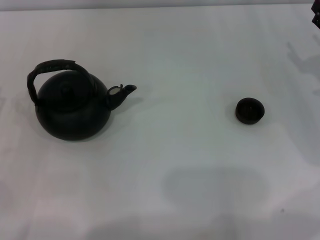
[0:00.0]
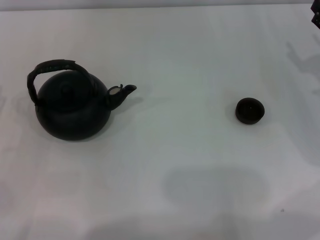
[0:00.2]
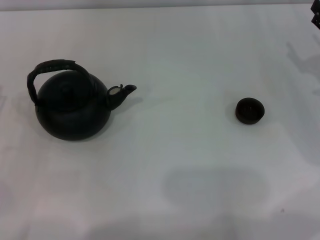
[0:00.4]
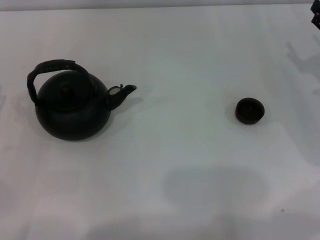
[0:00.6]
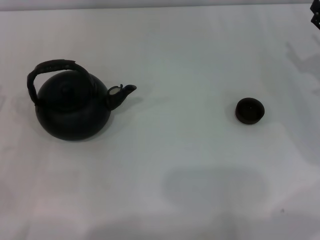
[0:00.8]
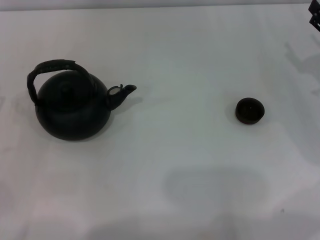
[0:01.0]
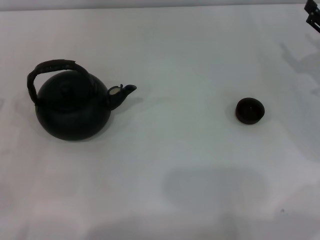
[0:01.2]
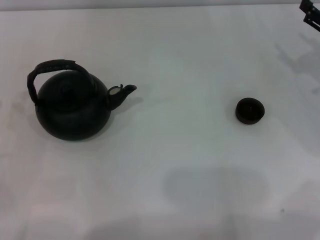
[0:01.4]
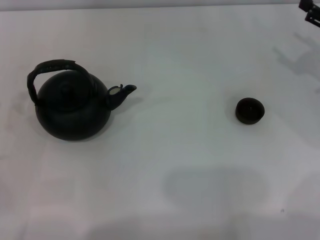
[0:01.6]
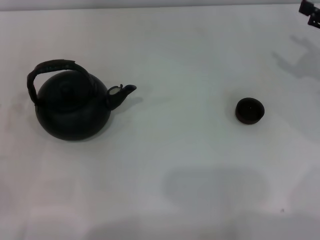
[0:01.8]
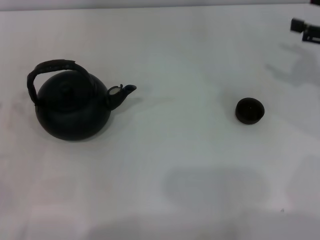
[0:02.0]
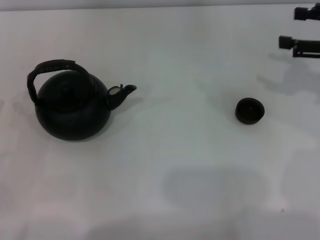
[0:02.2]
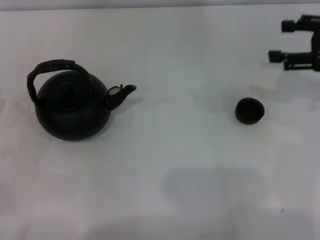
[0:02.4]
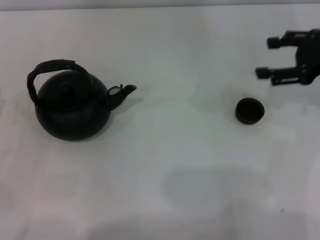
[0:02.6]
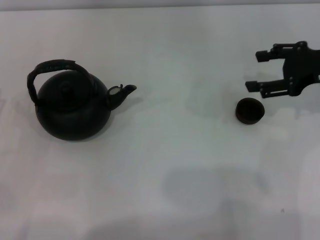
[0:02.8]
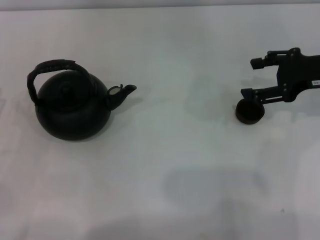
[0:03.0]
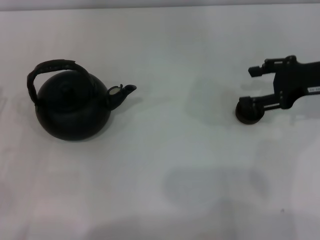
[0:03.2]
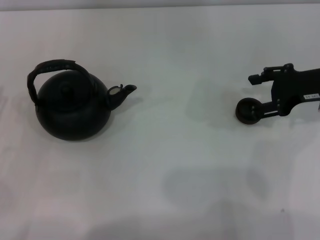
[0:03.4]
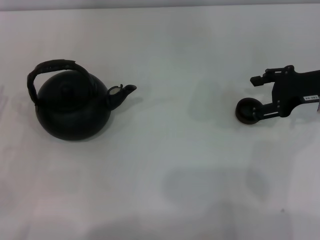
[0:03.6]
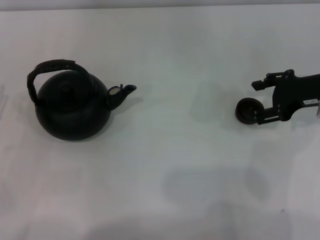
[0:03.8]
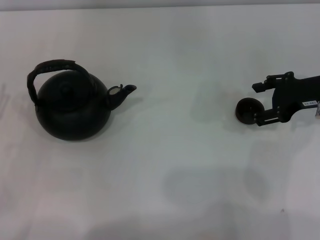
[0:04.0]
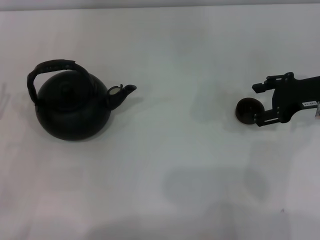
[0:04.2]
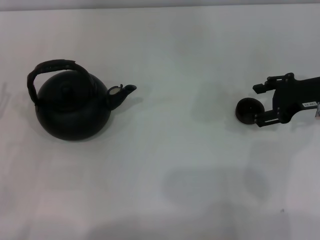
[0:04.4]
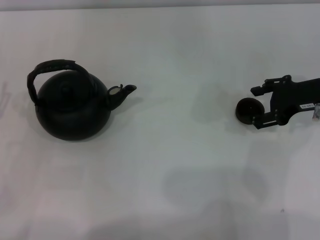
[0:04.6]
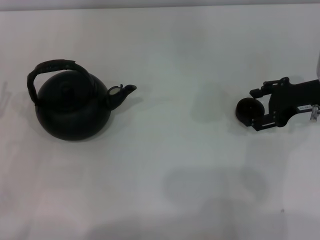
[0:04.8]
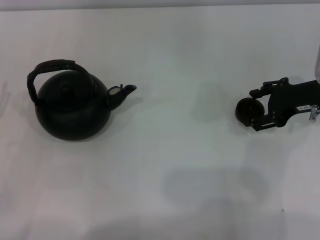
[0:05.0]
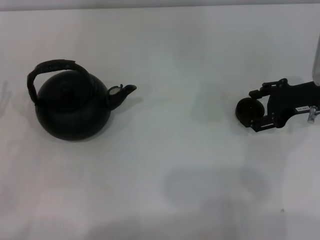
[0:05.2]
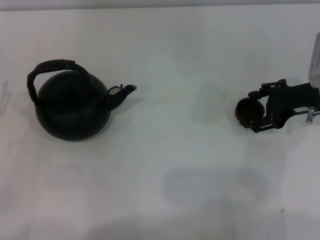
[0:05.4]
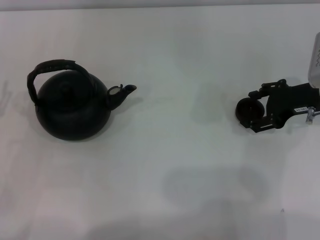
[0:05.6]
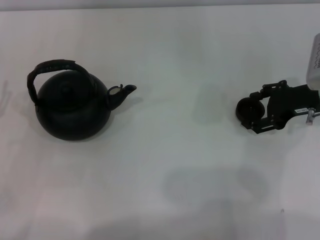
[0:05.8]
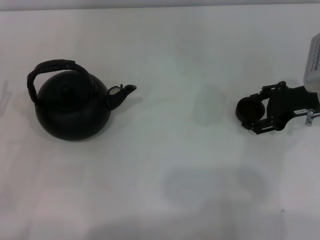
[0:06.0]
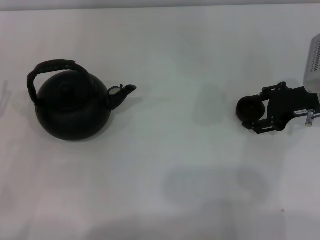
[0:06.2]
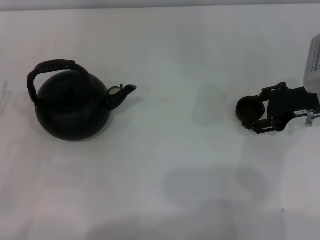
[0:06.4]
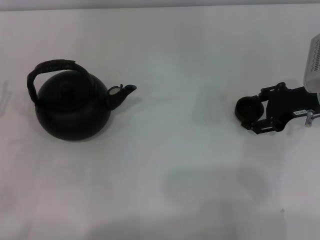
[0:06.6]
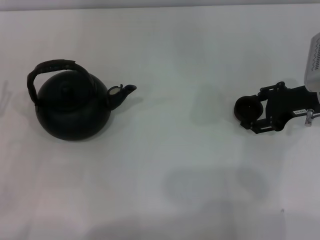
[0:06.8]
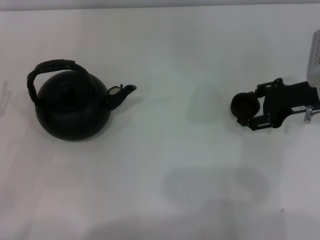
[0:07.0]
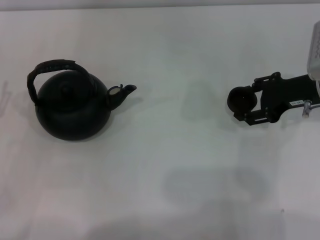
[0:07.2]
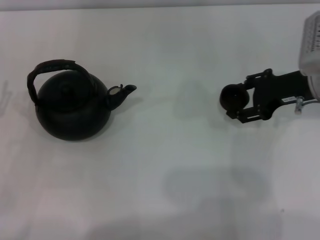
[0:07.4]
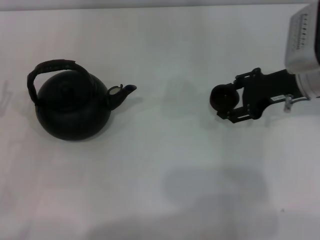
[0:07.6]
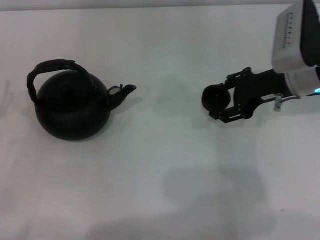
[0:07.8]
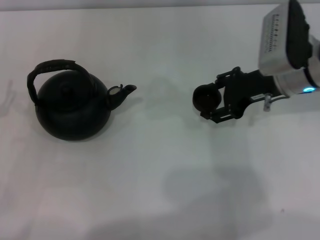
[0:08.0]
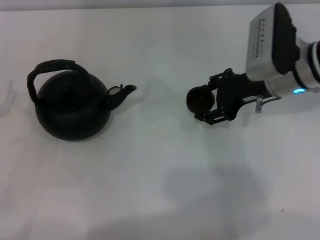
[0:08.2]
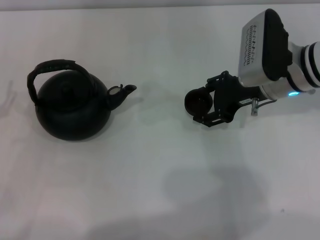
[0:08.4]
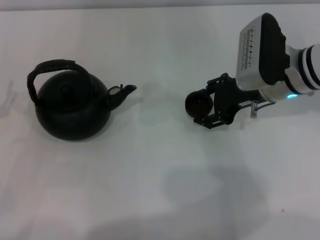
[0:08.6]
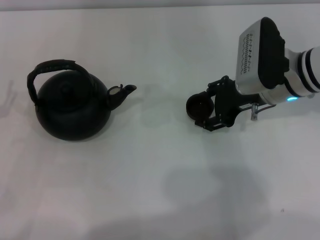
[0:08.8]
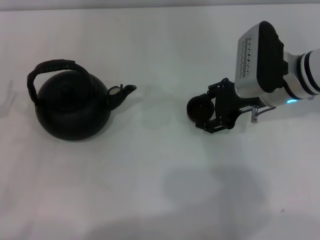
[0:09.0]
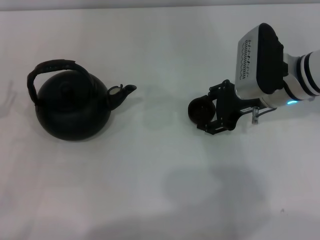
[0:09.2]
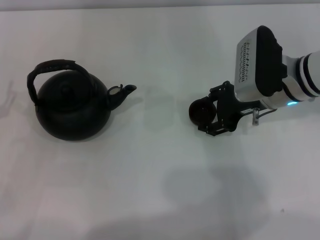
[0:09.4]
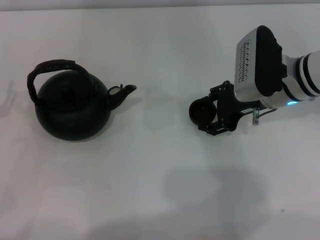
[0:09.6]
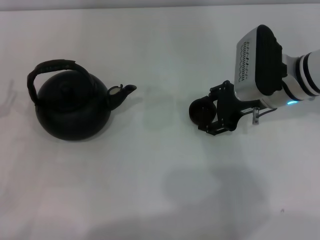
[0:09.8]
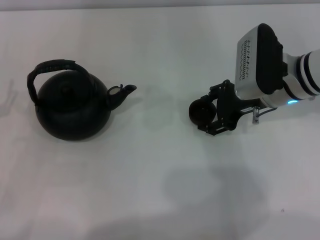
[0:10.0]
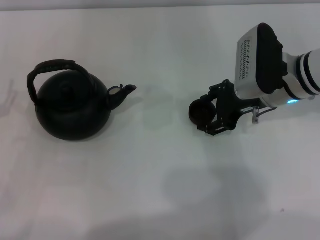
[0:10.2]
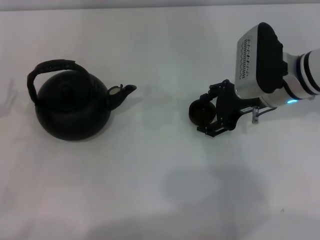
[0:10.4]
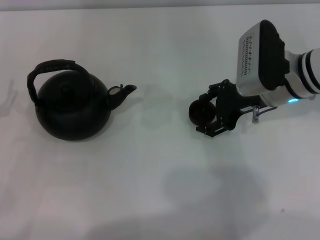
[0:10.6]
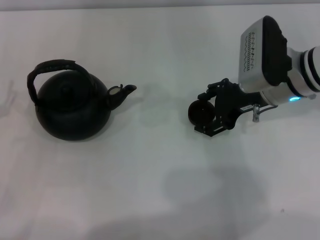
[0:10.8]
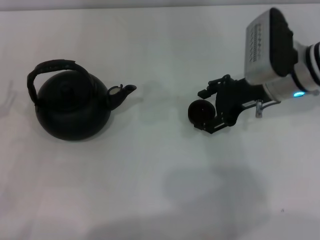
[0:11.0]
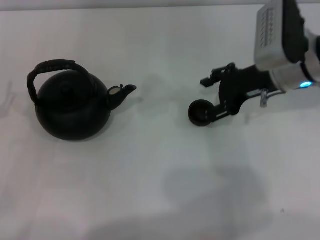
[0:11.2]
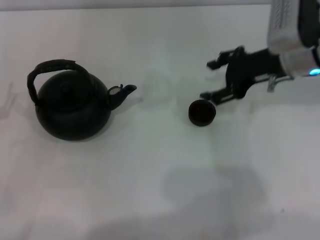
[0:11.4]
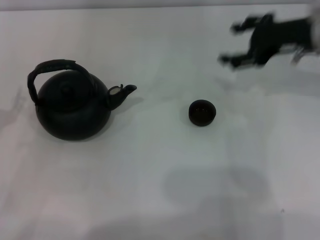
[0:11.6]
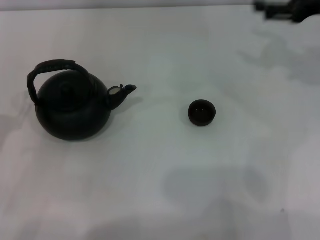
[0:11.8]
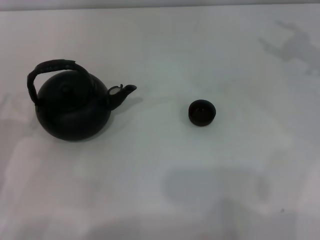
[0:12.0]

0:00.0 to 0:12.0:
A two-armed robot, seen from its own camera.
Task of the whole recording: Grasp the handle of the teapot with one hand and pour tea into the teacup.
Step, 0:00.0 to 0:07.6: Pick up the teacup with the right gripper.
Step, 0:07.8 to 0:11.0: Place the teacup in the center of view with the right gripper.
0:01.6 to 0:03.0: The right gripper goes approximately 5 cm to the left.
0:03.0 to 0:06.0: The grippers stay close to where they were, moving slightly.
0:06.0 to 0:07.6: The right gripper ends up roughly 5 cm from where it was, and closes.
0:07.6 to 0:09.0: The right gripper shifts roughly 5 cm to the left.
0:09.0 to 0:10.4: The right gripper opens its fingers.
0:10.4 to 0:12.0: The right gripper is displaced to the right and upward by roughly 20 cm, and opens its fingers.

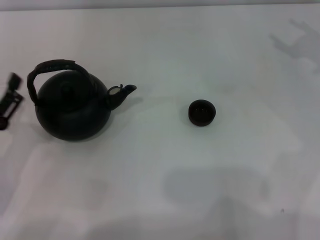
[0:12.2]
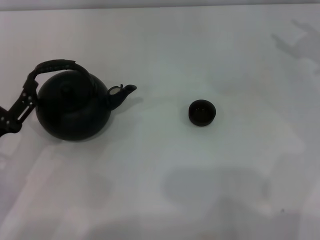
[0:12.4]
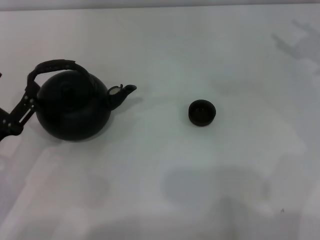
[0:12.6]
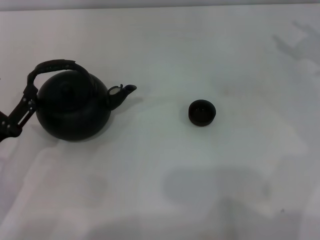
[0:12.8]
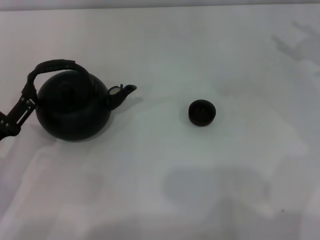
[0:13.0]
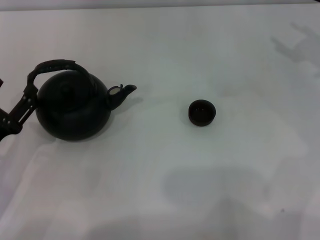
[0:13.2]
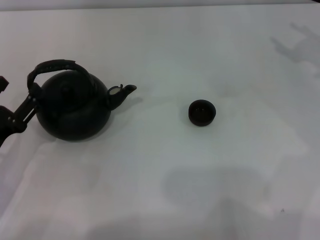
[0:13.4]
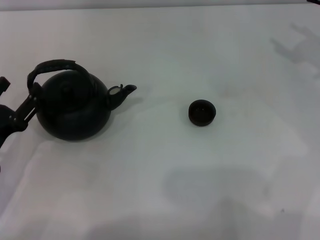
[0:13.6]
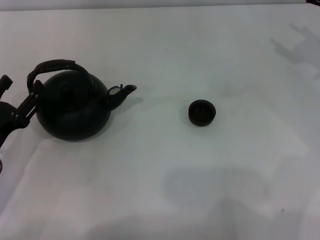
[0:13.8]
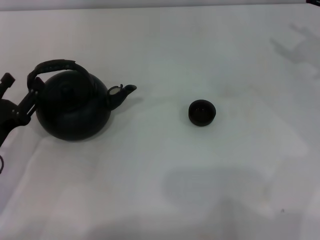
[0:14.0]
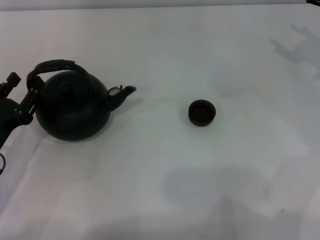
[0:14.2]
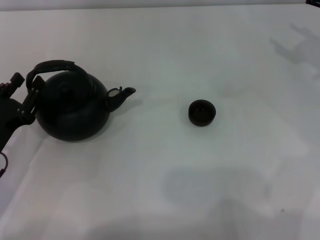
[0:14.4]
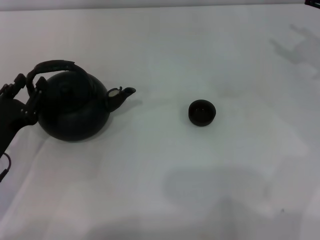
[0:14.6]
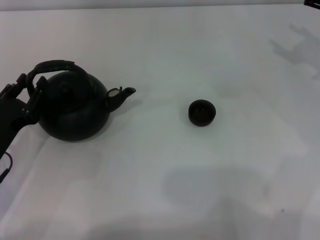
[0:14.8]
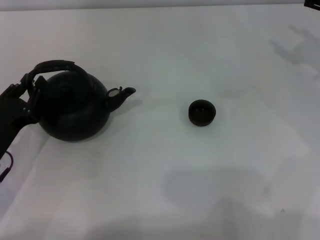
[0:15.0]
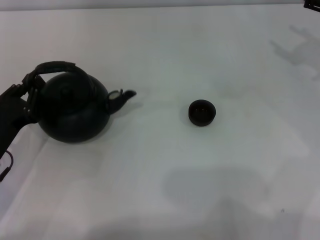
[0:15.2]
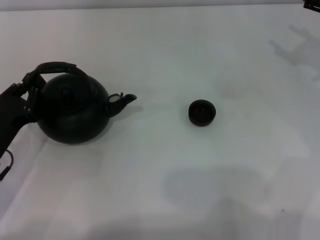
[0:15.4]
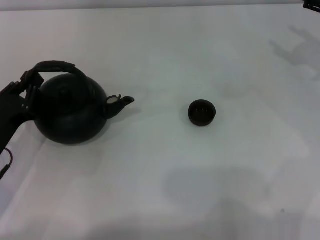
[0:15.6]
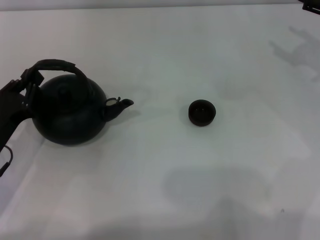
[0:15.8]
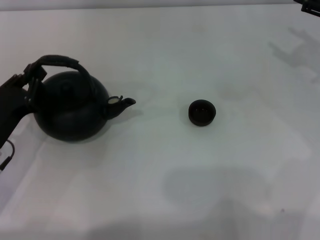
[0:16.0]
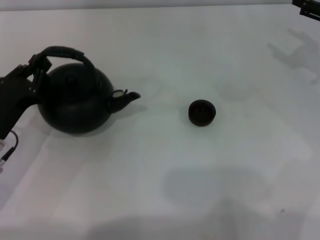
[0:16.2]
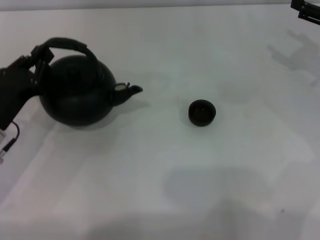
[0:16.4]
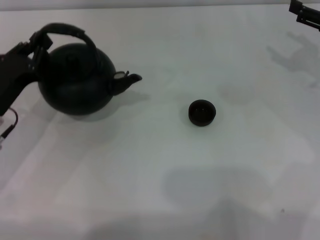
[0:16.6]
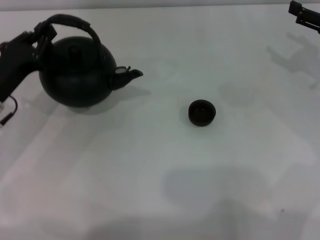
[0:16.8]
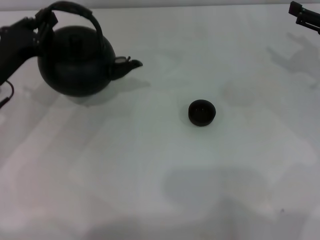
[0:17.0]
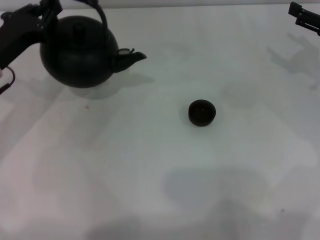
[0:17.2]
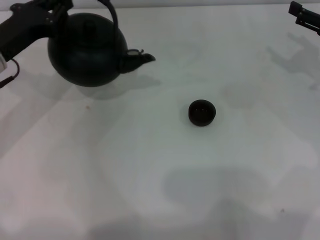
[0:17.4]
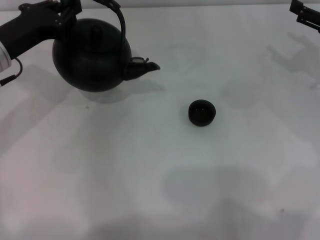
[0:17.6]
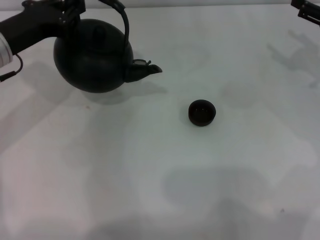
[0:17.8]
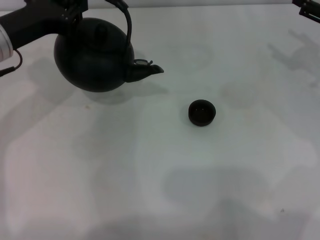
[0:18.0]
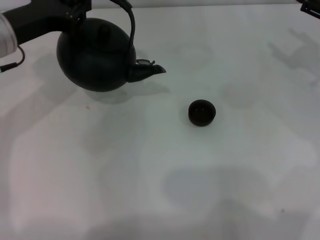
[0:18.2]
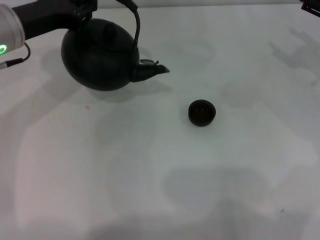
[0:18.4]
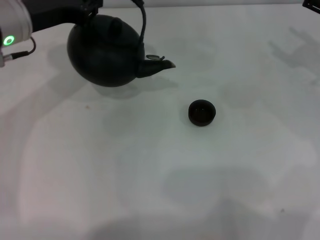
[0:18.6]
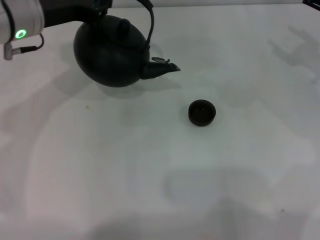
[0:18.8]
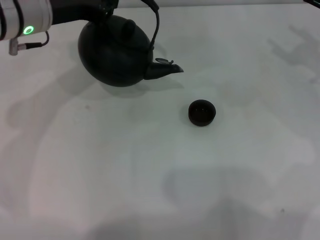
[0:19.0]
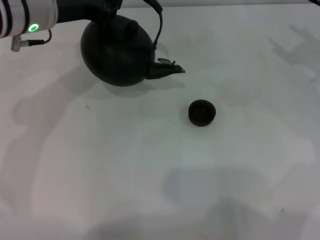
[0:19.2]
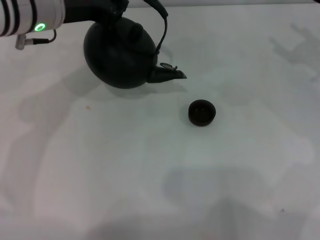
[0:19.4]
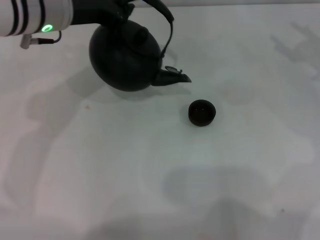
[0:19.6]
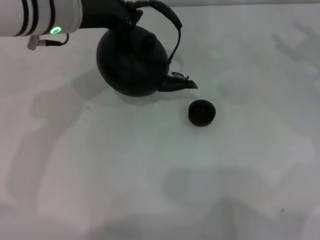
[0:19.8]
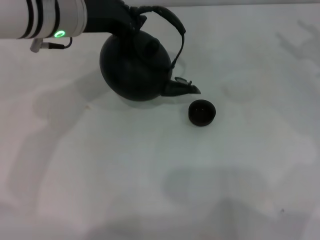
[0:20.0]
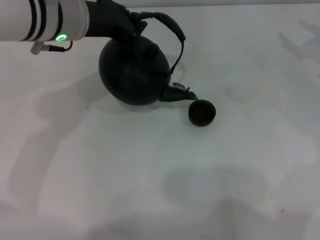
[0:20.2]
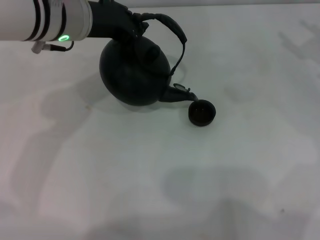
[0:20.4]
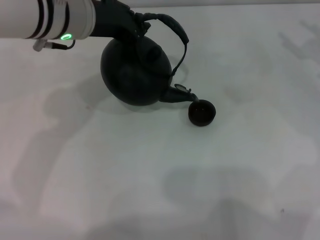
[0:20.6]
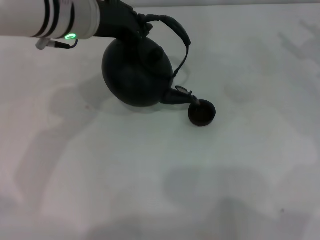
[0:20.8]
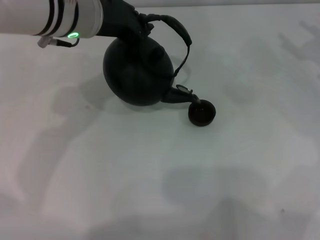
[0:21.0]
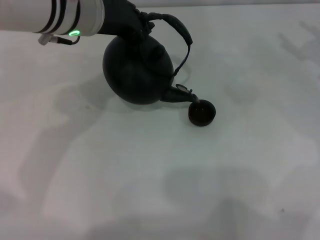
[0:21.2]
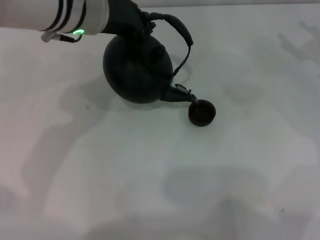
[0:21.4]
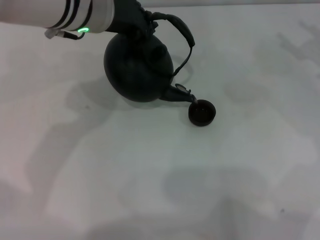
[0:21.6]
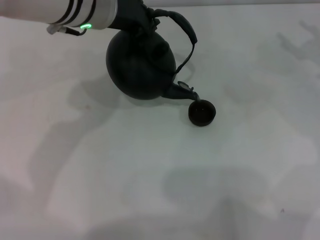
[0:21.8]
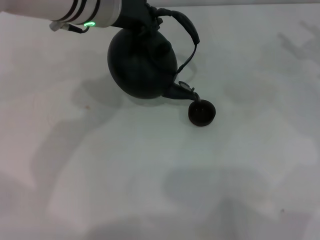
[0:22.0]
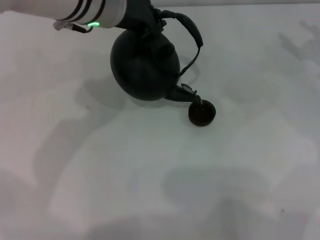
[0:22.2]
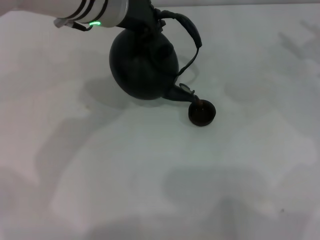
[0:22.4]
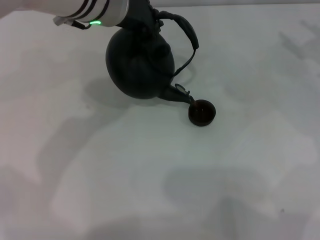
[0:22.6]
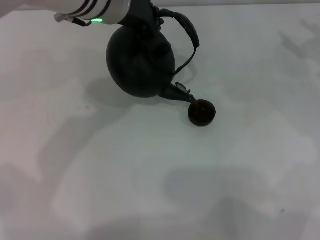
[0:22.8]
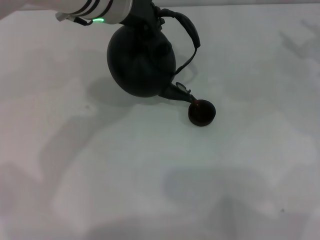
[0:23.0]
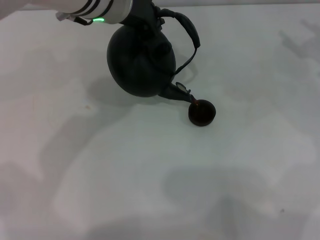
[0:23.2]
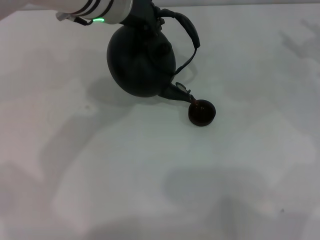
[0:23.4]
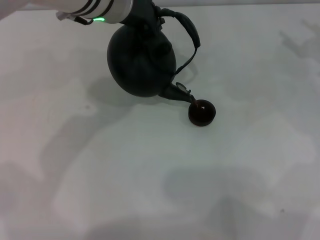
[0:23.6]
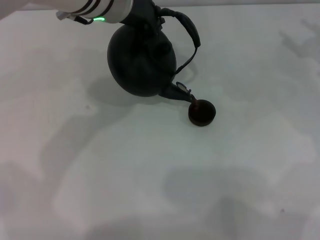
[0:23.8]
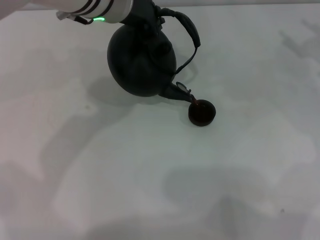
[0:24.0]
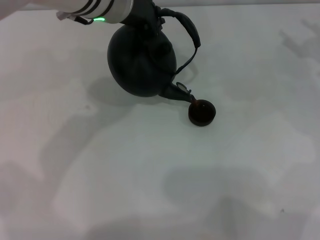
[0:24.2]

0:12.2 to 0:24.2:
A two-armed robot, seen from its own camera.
Task of the whole recording: Grasp the handle of the teapot with one hand and pour tea into the teacup.
Step, 0:12.2 to 0:18.2: Pick up the teapot with the left gripper.
0:12.2 to 0:13.8: The grippers stay close to where they were, moving slightly.
0:13.8 to 0:15.2: The left gripper closes.
0:15.2 to 0:16.6: The left gripper is displaced forward by some 5 cm.
0:16.6 to 0:18.2: The left gripper is displaced upward and forward by about 15 cm.
0:18.2 to 0:19.8: The left gripper travels to the right by approximately 10 cm.
0:19.8 to 0:21.2: There are only small adjustments of the grippers.
0:21.2 to 0:22.6: There are only small adjustments of the grippers.
0:22.6 to 0:24.2: Both grippers stay put.
